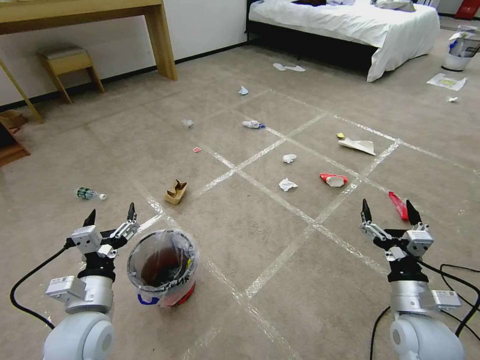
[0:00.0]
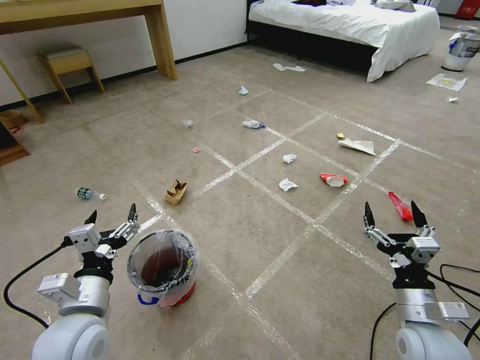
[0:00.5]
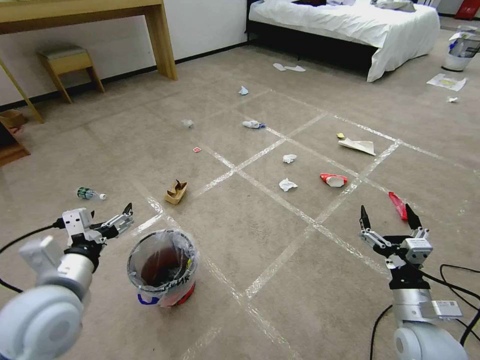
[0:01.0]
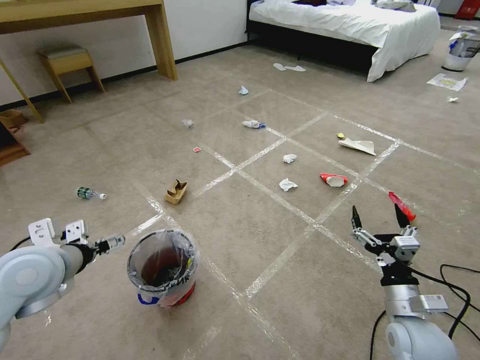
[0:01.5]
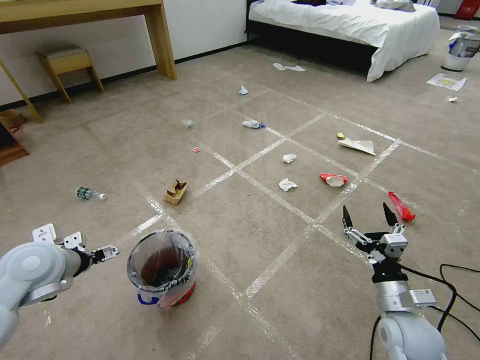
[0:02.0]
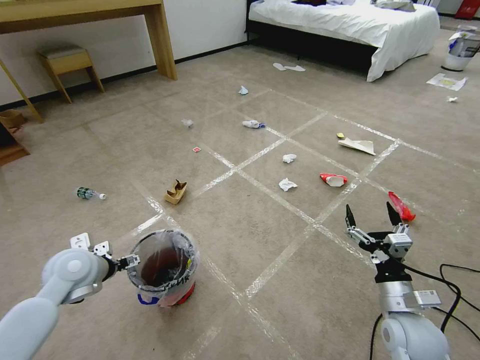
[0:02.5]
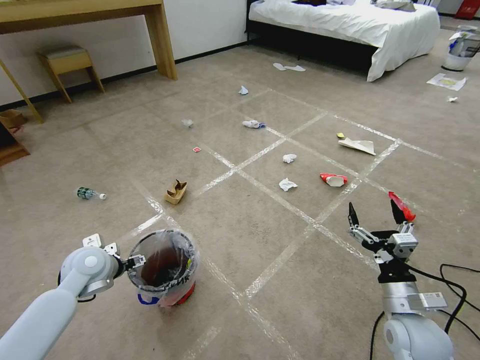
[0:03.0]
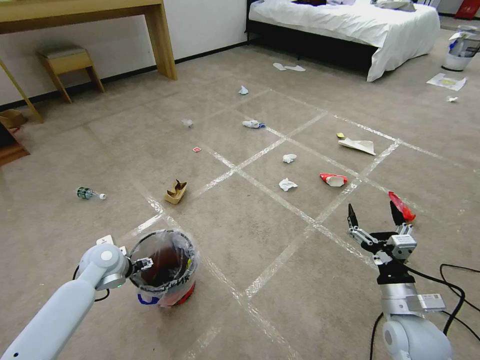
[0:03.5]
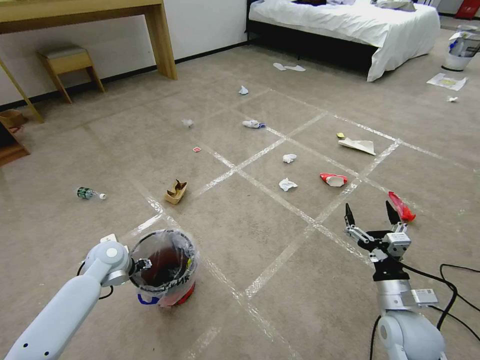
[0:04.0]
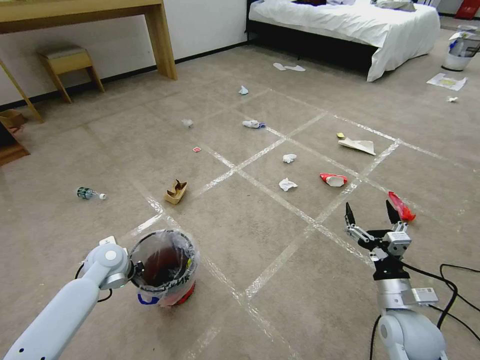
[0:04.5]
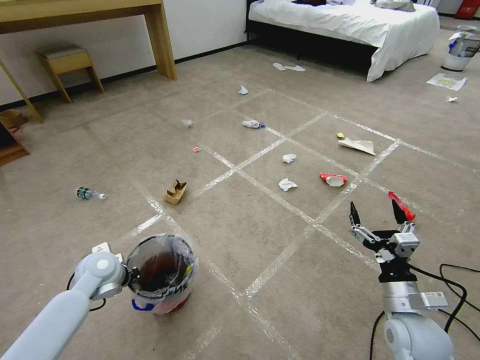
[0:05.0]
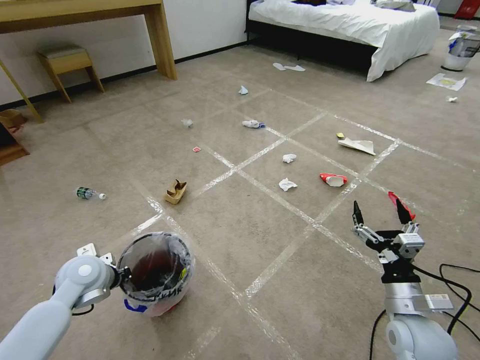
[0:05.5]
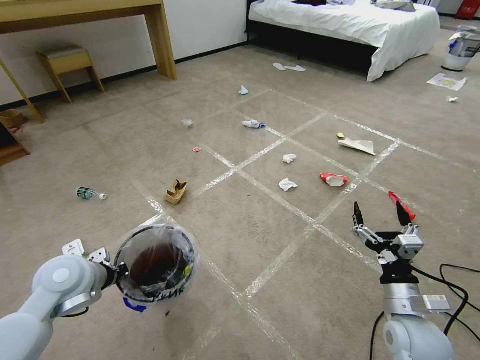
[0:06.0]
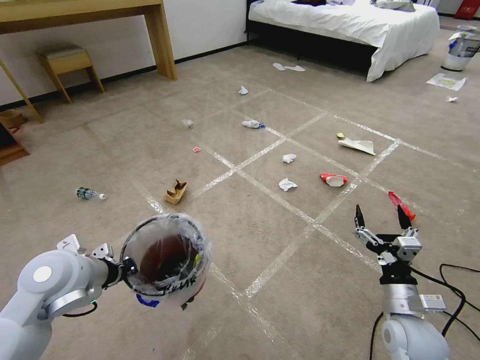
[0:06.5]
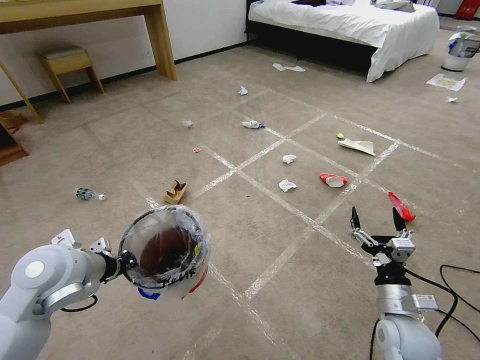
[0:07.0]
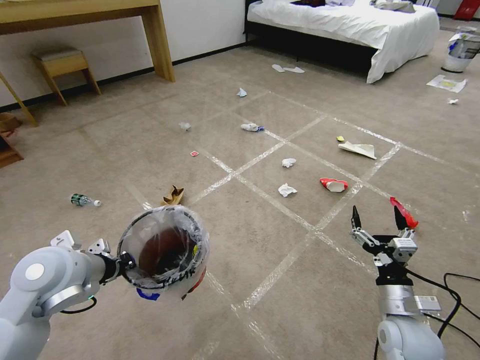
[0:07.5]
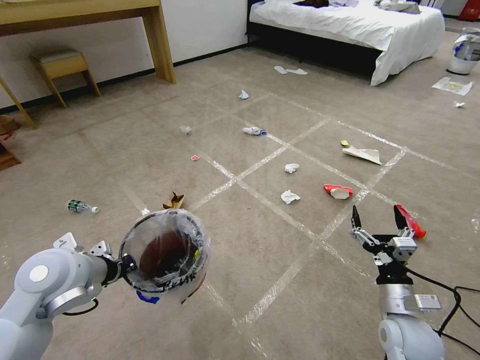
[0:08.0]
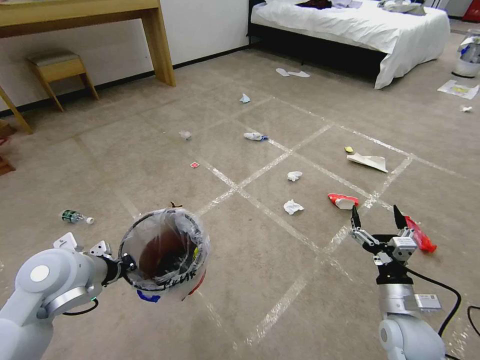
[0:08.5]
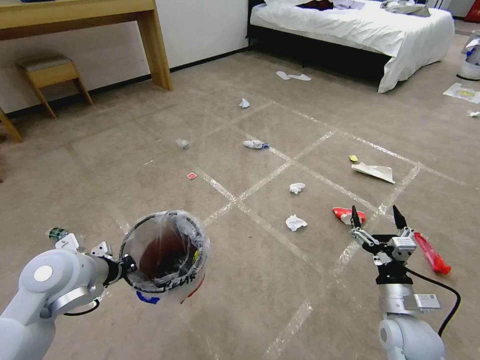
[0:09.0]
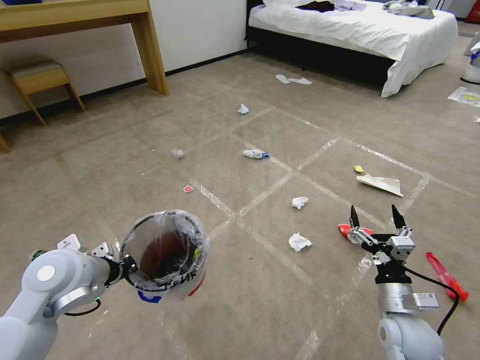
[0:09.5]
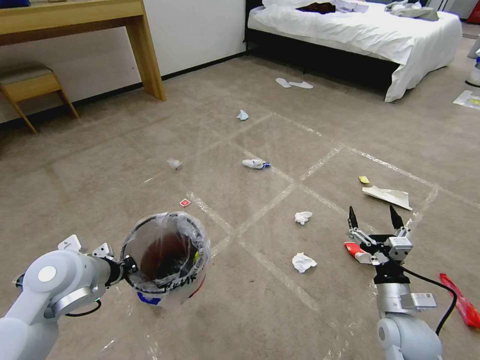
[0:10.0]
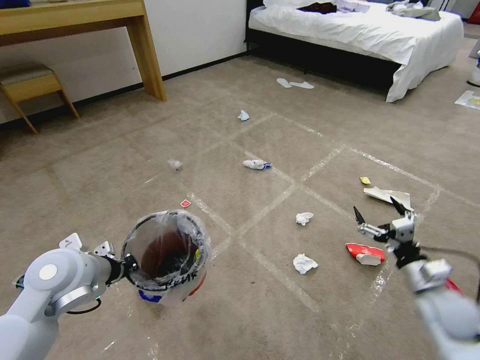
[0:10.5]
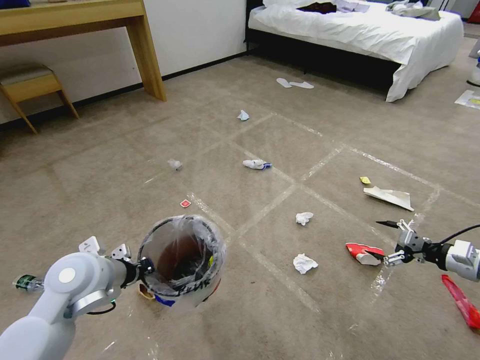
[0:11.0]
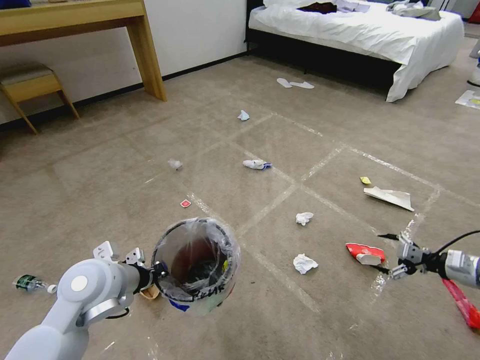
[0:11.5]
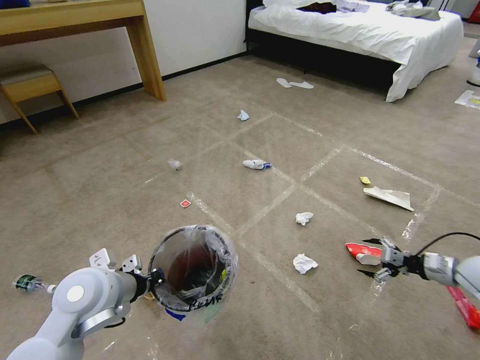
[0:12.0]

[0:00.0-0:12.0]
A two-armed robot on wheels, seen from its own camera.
Task of the whole recording: Pick up the trash bin and place the garbage on the floor into it.
2.0 to 4.0 s: The left gripper shifts about 15 cm downward and forward.
4.0 to 6.0 s: The left gripper moves upward and backward, some 15 cm, and closes its fingers.
6.0 to 8.0 s: The left gripper changes place by about 5 cm.
10.0 to 12.0 s: The left gripper ends up some 5 cm from where it was. Meanwhile the right gripper is displaced to the right and forward by approximately 25 cm.

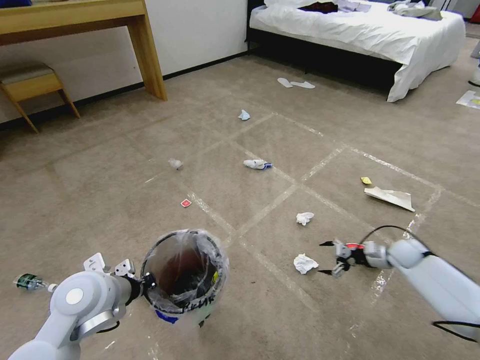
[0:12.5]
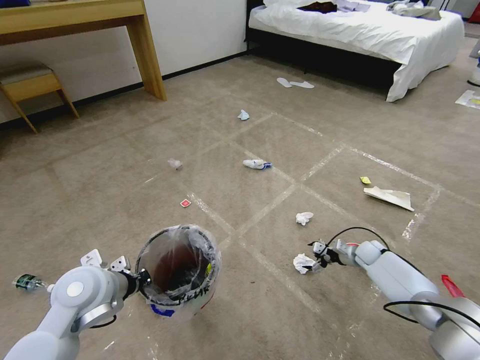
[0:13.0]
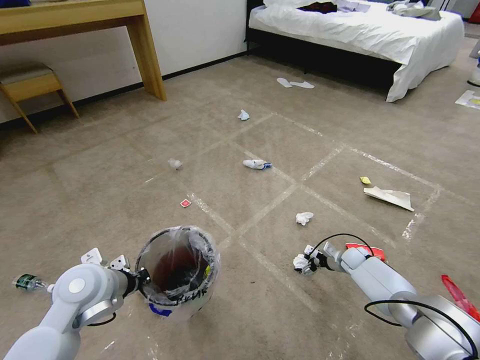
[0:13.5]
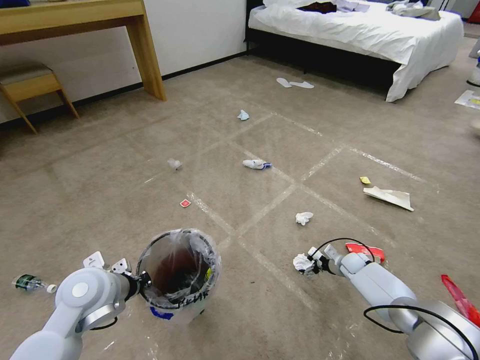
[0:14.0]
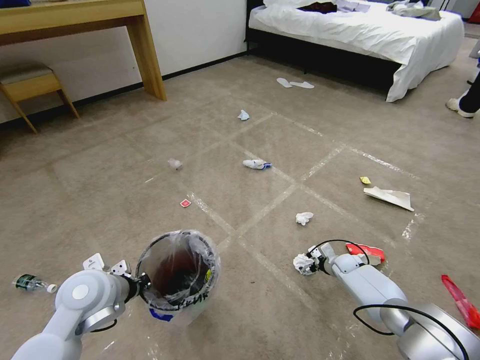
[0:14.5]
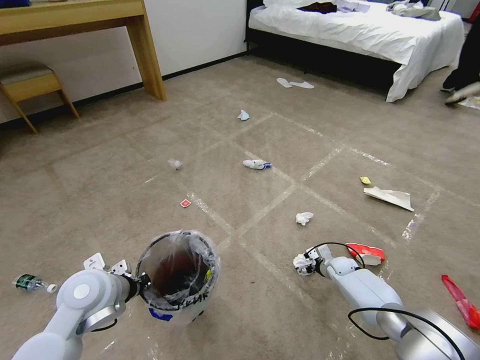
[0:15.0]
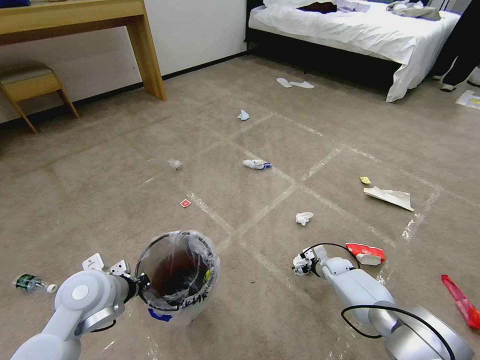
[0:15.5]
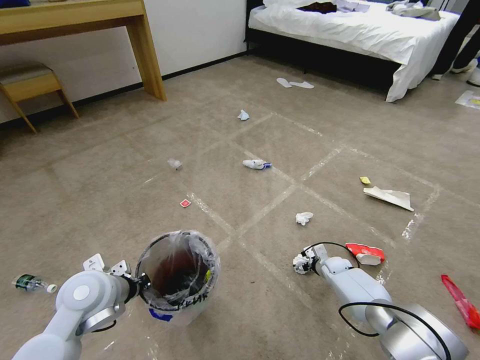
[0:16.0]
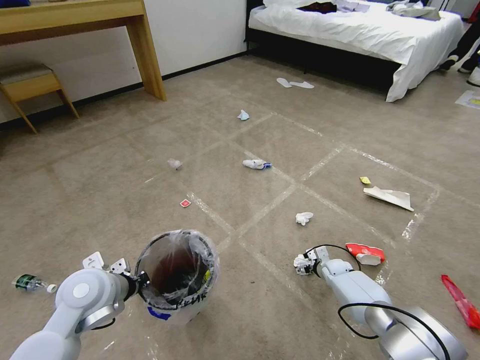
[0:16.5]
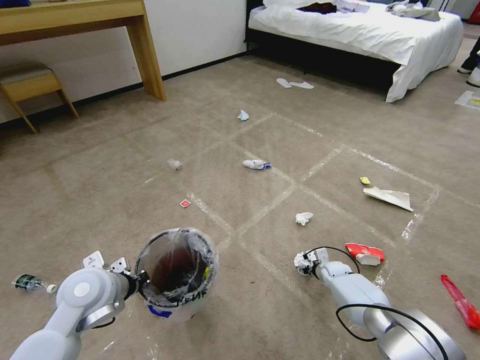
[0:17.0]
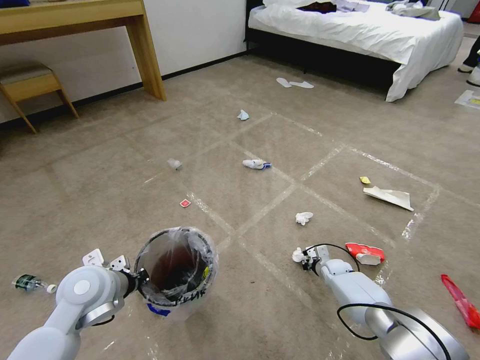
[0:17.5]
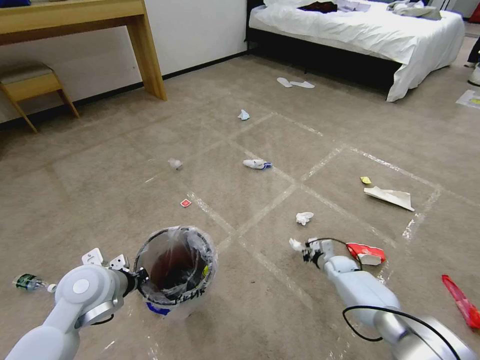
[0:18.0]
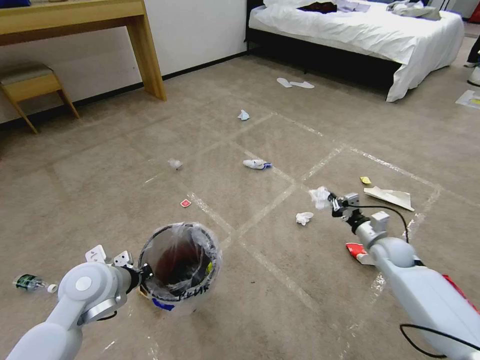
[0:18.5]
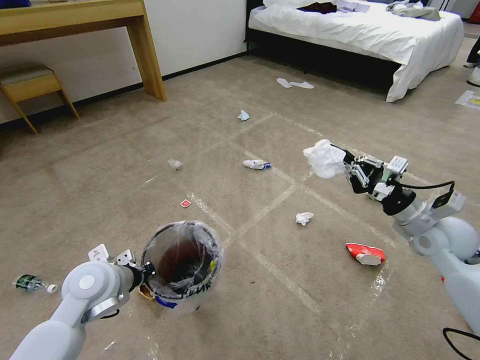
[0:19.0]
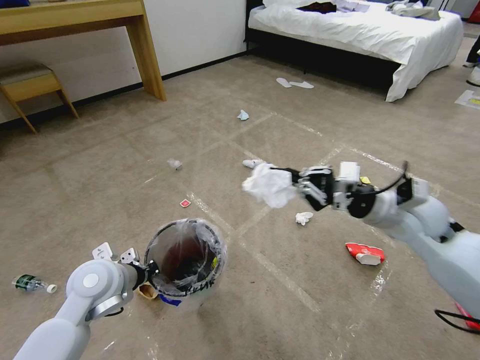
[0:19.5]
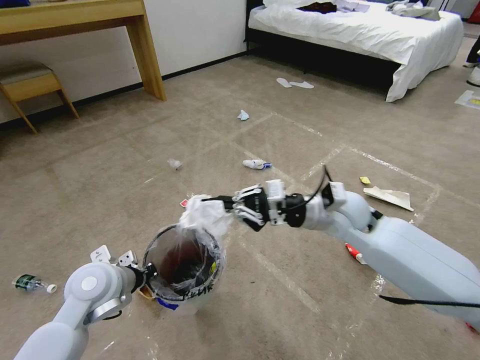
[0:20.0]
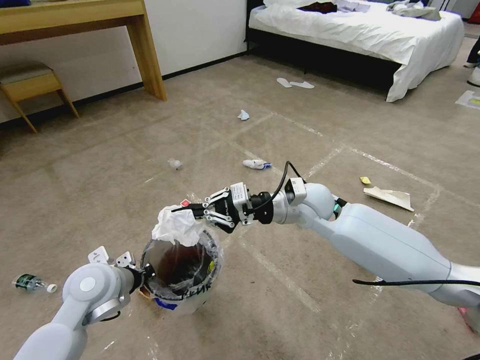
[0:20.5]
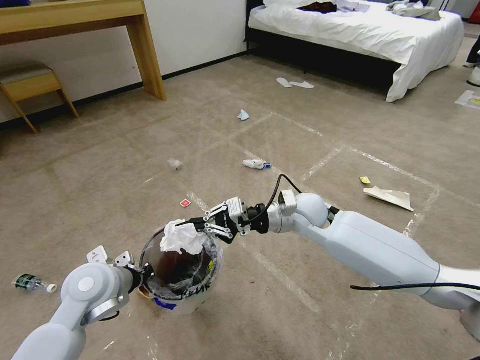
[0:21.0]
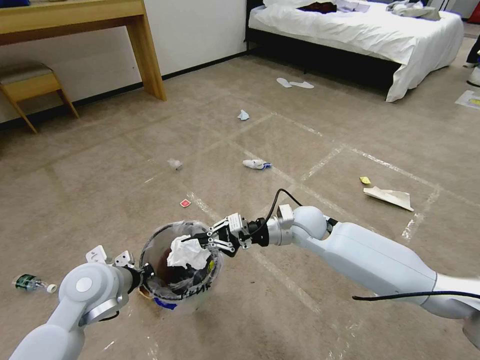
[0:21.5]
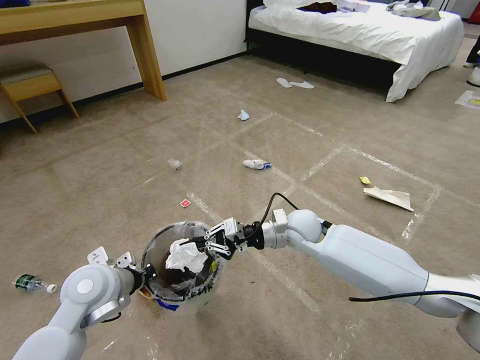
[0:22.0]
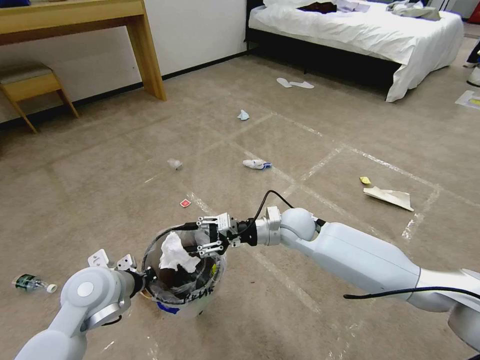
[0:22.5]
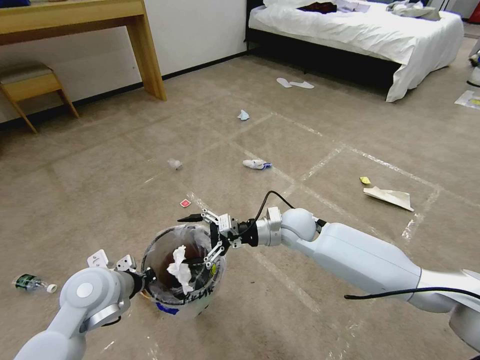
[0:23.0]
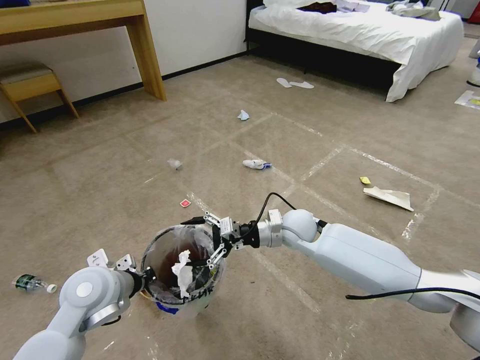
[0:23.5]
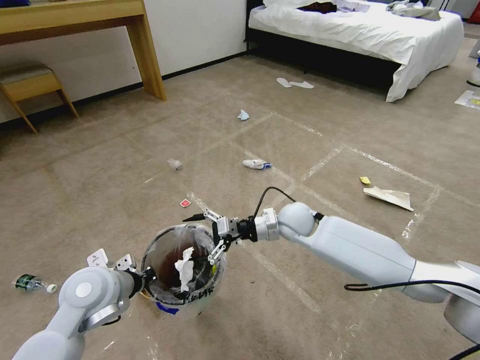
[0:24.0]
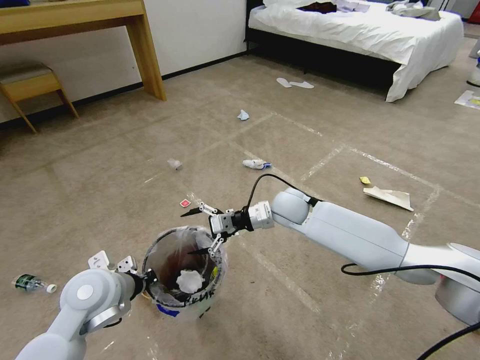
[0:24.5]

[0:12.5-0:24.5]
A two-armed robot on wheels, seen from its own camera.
Task of the whole recording: Pick up the trash bin and place the garbage on the floor into it.
12.5 to 14.5 s: The right gripper goes some 15 cm to the left and downward.
14.5 to 16.5 s: The grippers stay close to where they were, moving slightly.
16.5 to 18.5 s: The right gripper goes about 20 cm upward and to the right, and closes its fingers.
18.5 to 20.5 s: The right gripper heads to the left and upward, covering approximately 30 cm.
20.5 to 22.5 s: The right gripper heads downward, covering some 10 cm, and opens its fingers.
22.5 to 24.5 s: The right gripper changes place by about 5 cm, and opens.

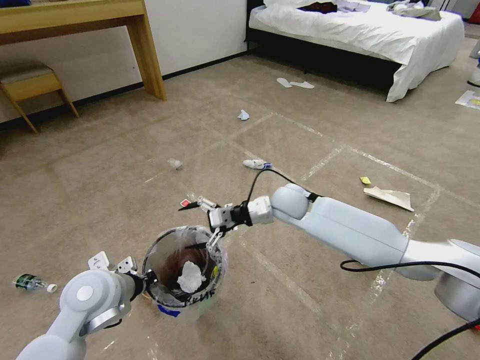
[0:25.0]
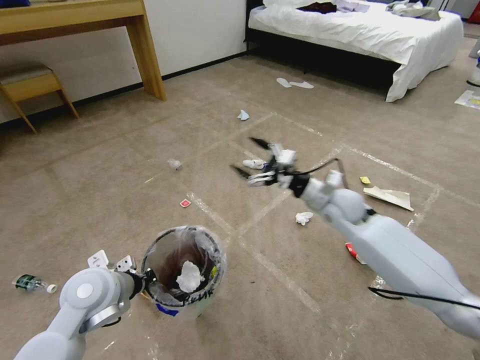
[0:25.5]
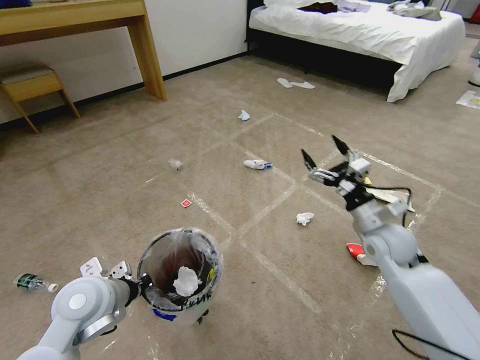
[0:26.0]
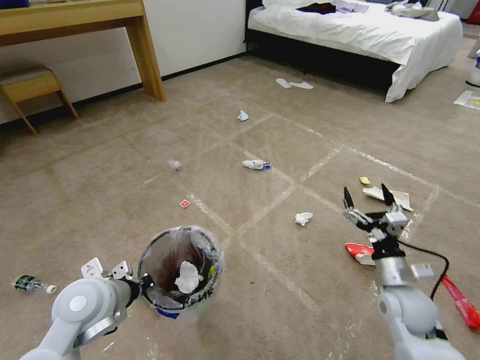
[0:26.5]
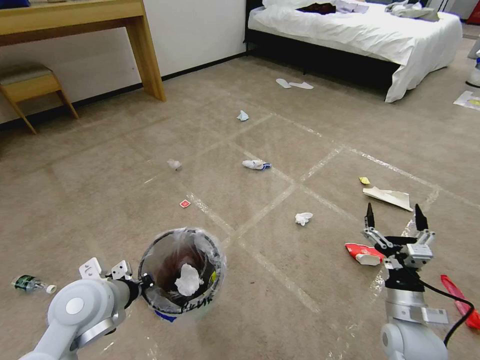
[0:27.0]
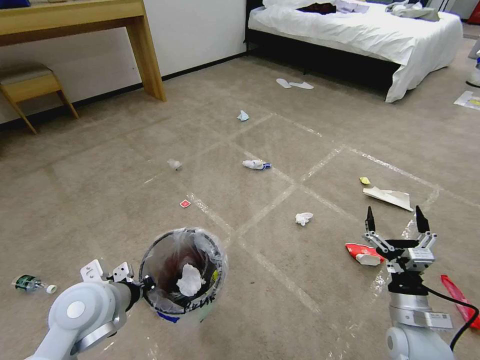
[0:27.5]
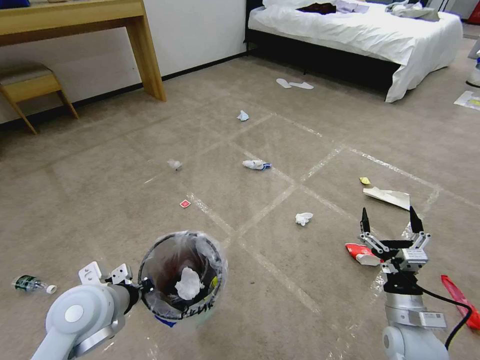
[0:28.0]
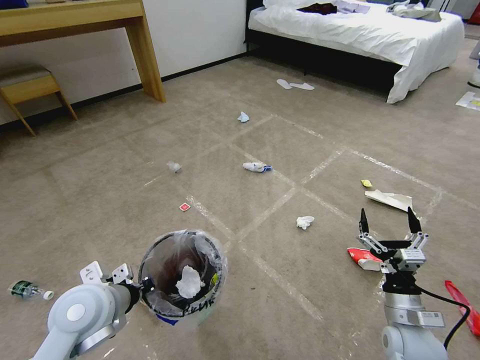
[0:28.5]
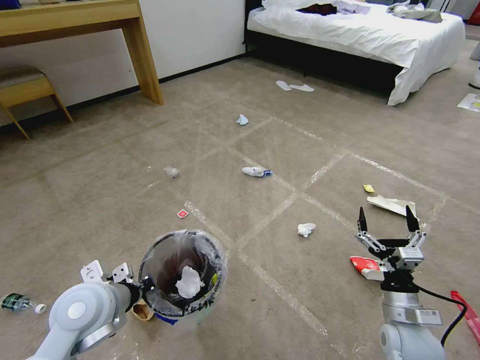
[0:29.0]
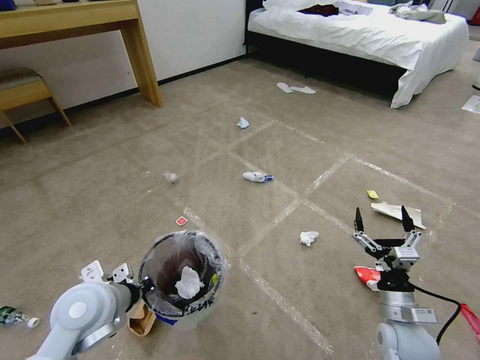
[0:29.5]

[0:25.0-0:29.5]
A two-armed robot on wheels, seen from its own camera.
Task of the whole recording: Pick up the trash bin and place the garbage on the floor into it.
25.0 to 27.0 s: The right gripper moves backward, to the right and downward, roughly 35 cm.
27.0 to 29.5 s: There are only small adjustments of the grippers.
